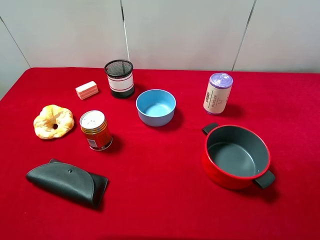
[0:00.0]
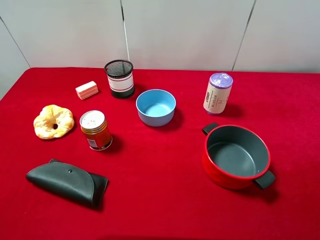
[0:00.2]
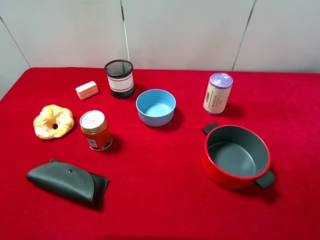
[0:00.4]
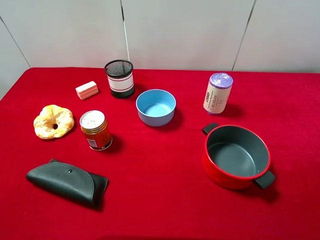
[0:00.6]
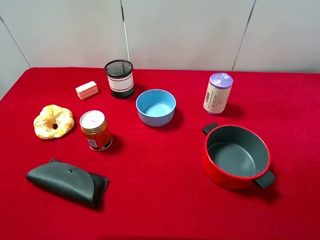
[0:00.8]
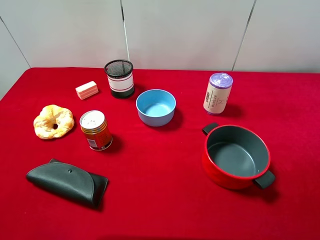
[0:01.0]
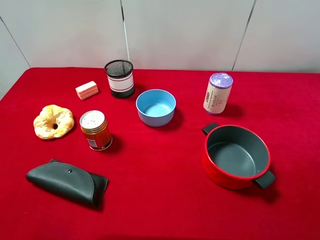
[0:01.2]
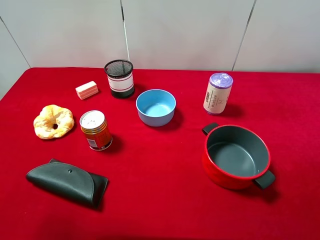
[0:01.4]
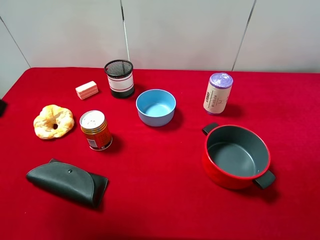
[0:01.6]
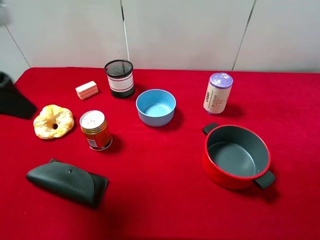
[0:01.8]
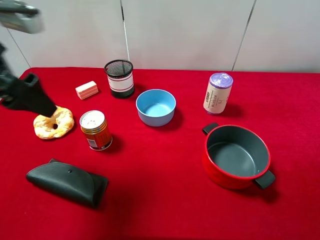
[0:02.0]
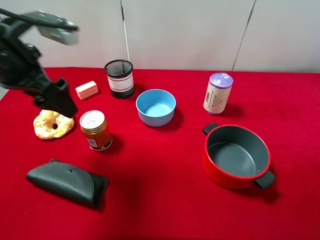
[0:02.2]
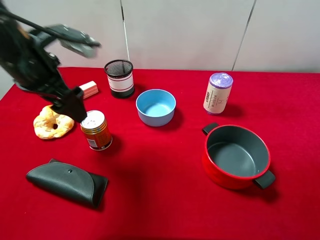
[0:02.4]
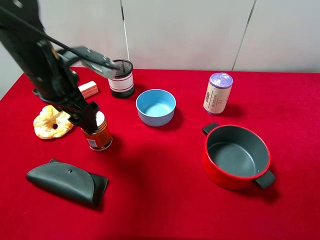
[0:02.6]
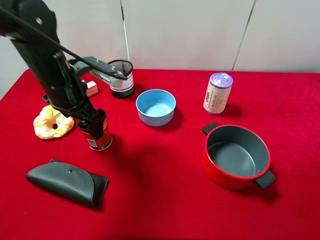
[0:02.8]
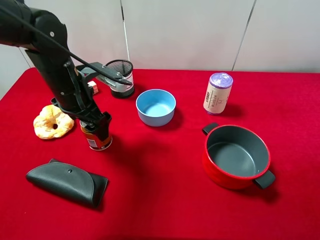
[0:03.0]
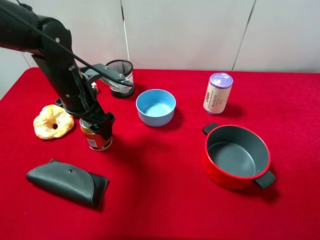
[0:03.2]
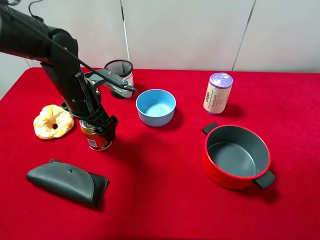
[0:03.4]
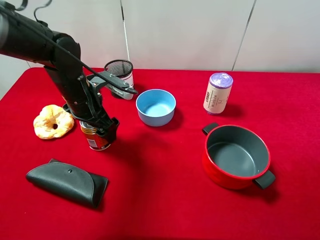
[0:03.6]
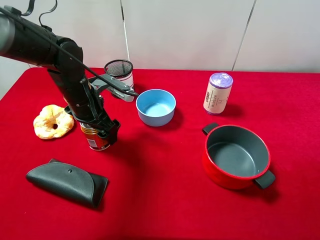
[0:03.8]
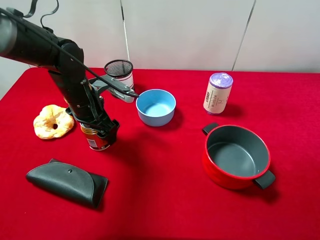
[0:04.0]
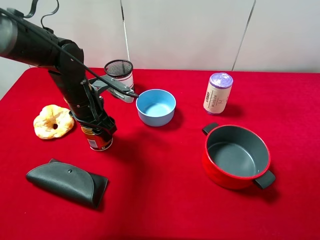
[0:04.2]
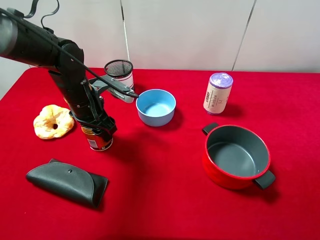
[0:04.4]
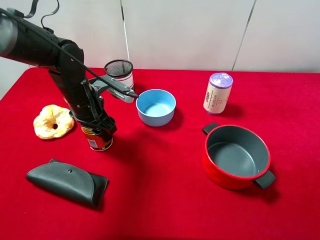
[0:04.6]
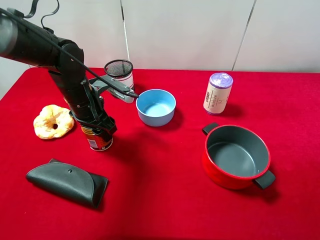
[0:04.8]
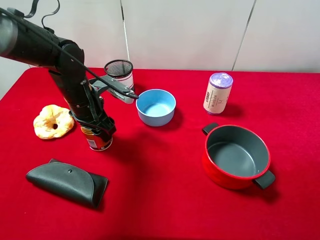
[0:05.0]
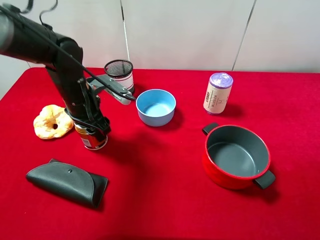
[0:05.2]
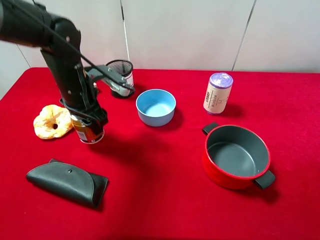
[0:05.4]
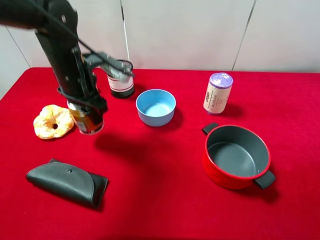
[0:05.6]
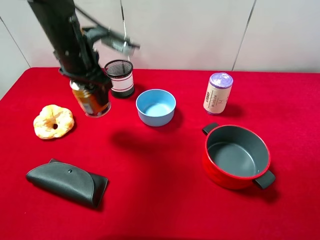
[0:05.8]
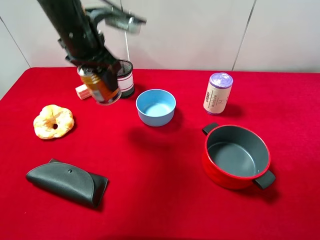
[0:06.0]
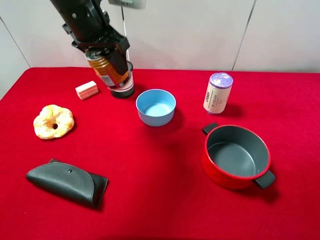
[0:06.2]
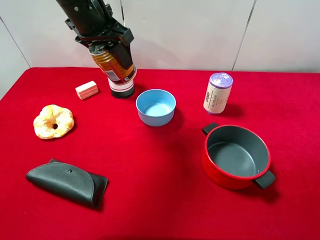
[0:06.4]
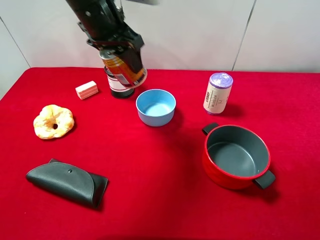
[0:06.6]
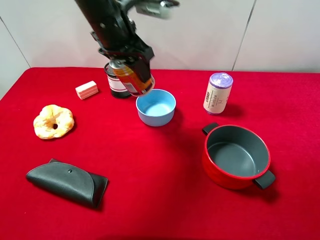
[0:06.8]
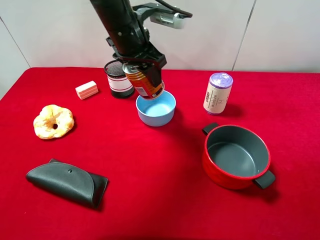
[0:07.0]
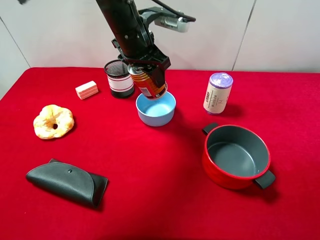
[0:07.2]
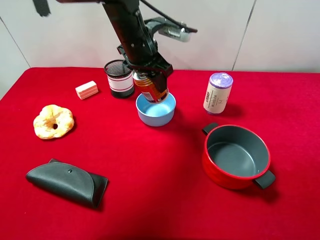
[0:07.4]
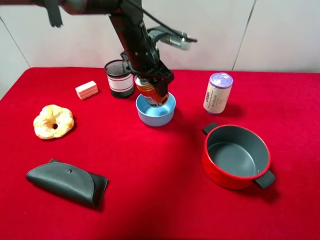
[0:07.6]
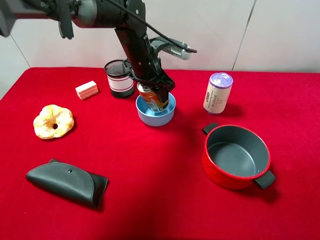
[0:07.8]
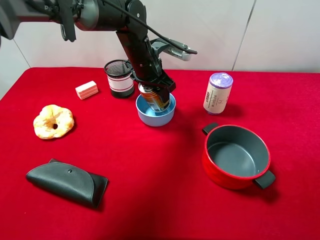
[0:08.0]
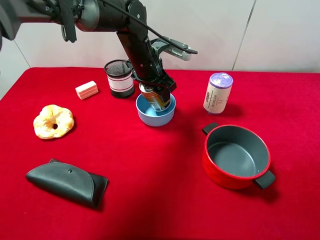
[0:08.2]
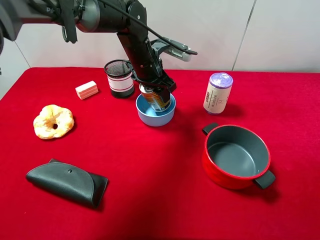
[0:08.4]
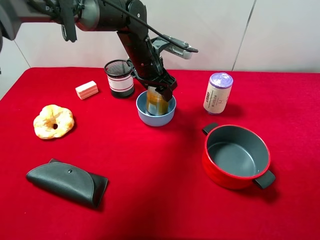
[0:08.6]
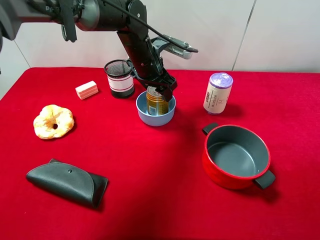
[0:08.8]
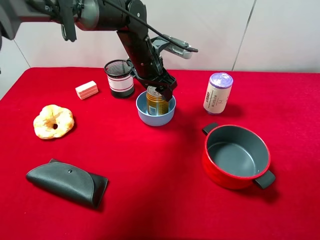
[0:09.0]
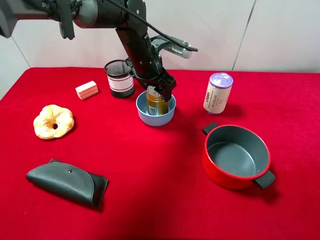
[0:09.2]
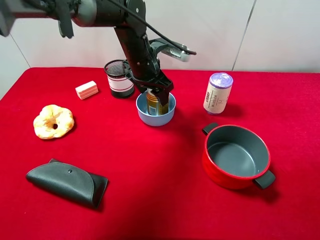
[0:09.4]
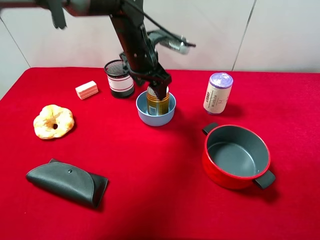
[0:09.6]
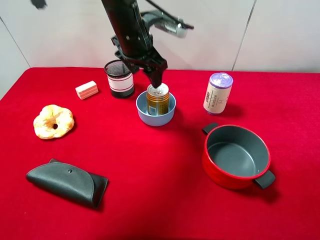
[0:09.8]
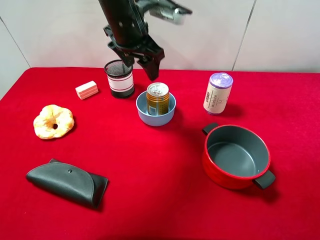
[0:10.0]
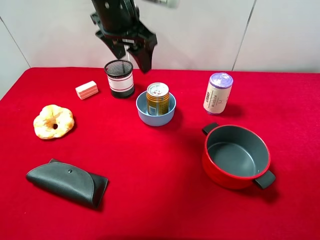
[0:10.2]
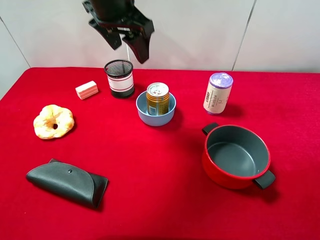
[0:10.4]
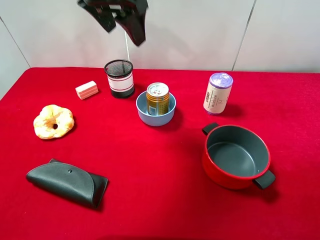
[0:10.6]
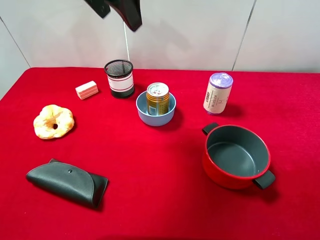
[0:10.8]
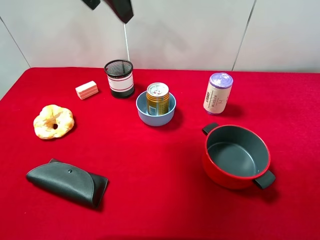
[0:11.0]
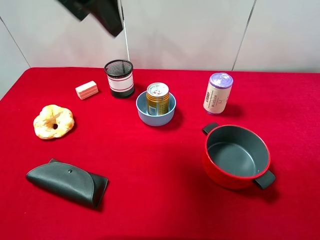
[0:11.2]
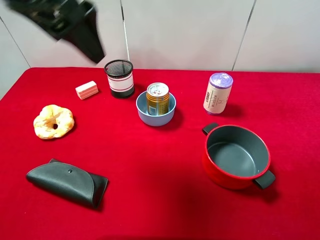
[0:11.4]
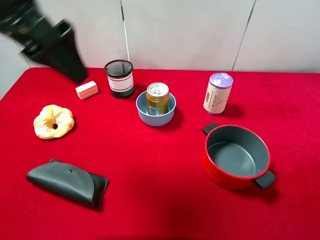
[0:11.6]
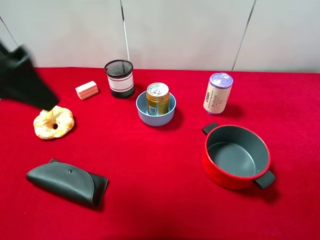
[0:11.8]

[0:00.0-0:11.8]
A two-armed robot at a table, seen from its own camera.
Task of the whole recording: pick up an item with a gripper and place it in a random container on the desktop.
0:01.4 to 0:03.0: The left gripper moves forward, downward and to the right, approximately 25 cm.
0:03.0 to 0:04.4: The left gripper closes up.
0:04.4 to 0:06.0: The left gripper is displaced upward by roughly 15 cm.
0:06.0 to 0:07.4: The left gripper is displaced to the right and downward by some 10 cm.
0:07.4 to 0:08.8: The grippers move only a little.
0:08.8 to 0:10.4: The left gripper is displaced upward by approximately 15 cm.
0:10.4 to 0:11.8: The left gripper travels backward and to the left by about 20 cm, and opens its fingers.

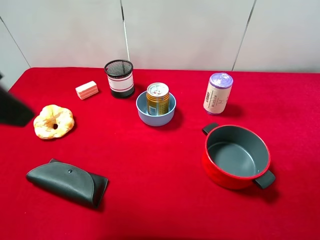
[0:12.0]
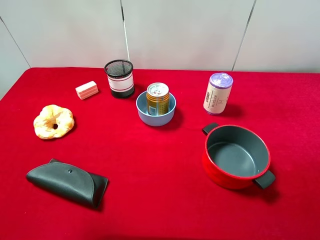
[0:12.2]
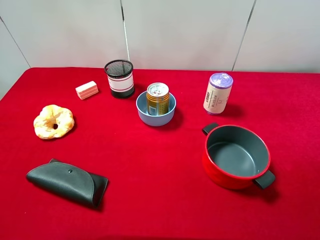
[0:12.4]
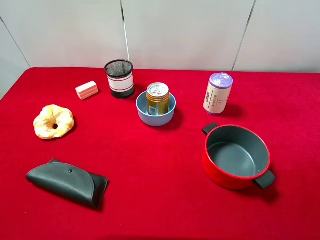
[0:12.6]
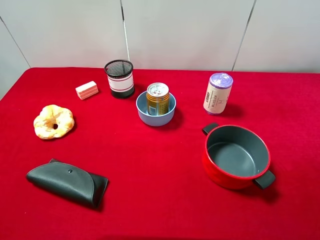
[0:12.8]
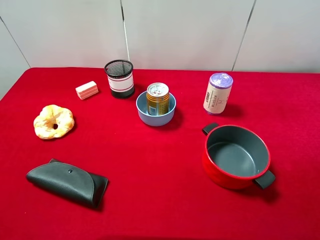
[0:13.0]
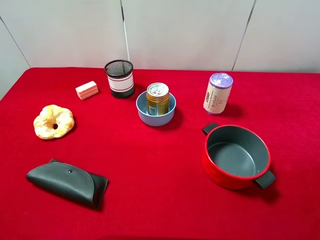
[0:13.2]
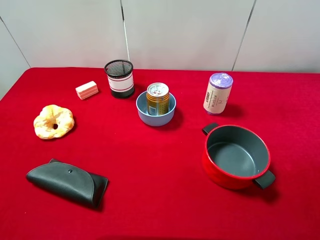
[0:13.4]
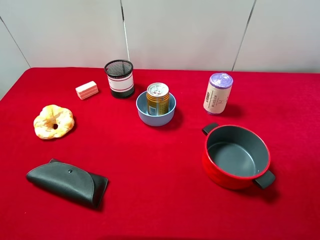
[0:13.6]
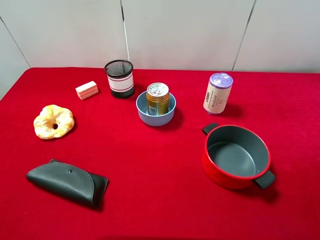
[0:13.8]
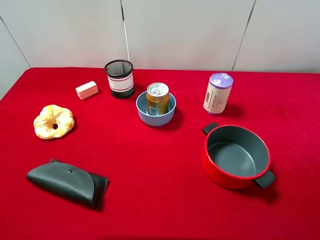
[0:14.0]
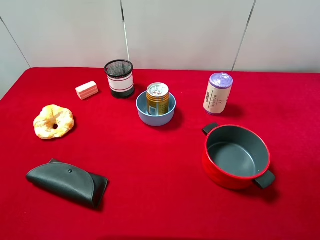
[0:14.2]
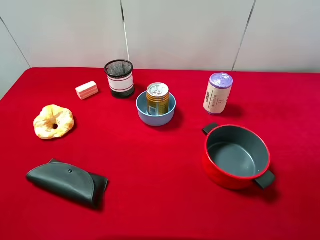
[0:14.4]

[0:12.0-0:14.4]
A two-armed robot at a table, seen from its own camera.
Task of the whole recording: pick up an item with a gripper and place it in a random container on the desktop.
0:12.0 to 0:13.2: The left gripper heads backward, to the left and downward, covering about 20 cm.
0:13.2 to 0:14.4: Both grippers stay about where they are.

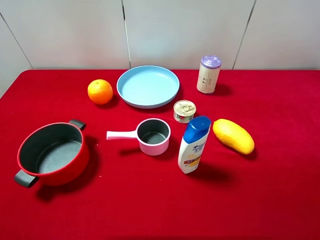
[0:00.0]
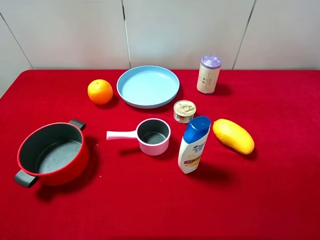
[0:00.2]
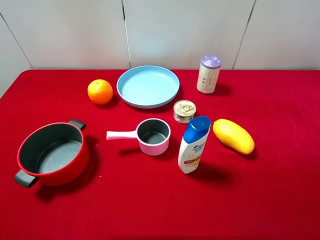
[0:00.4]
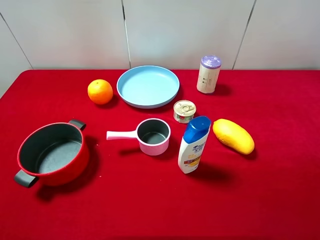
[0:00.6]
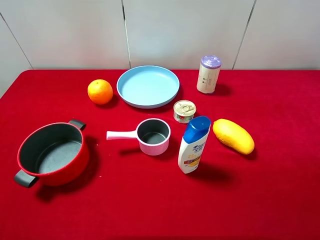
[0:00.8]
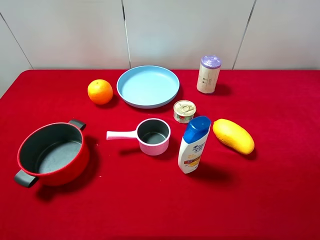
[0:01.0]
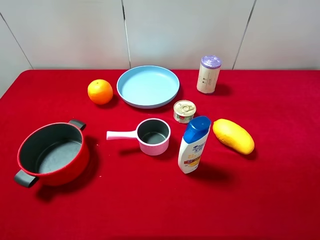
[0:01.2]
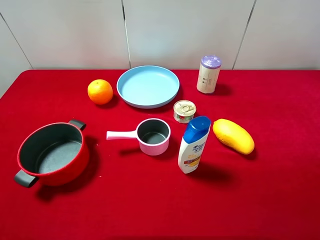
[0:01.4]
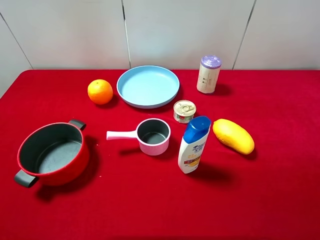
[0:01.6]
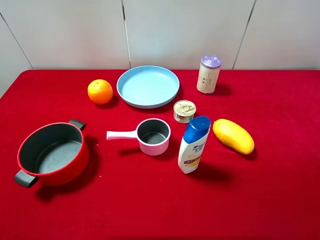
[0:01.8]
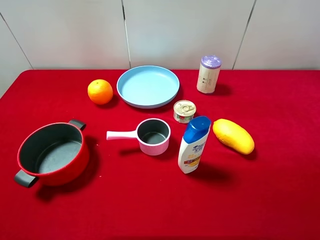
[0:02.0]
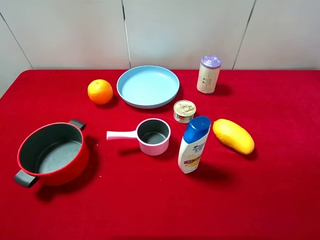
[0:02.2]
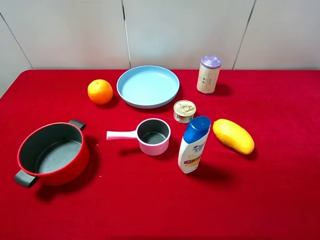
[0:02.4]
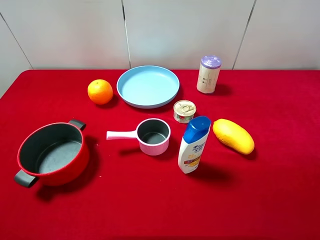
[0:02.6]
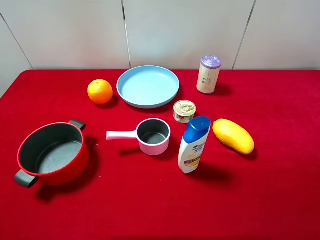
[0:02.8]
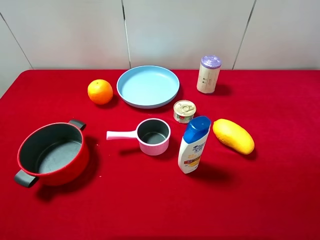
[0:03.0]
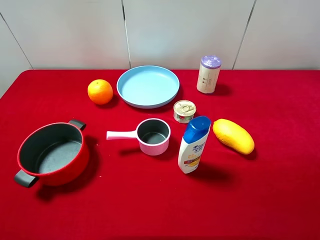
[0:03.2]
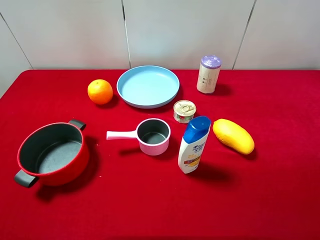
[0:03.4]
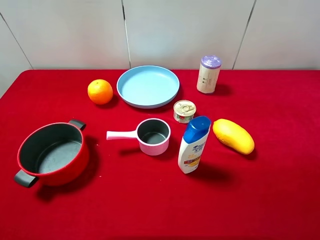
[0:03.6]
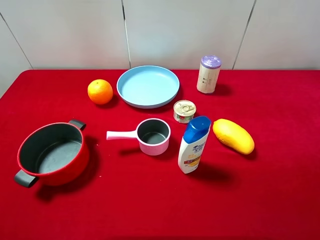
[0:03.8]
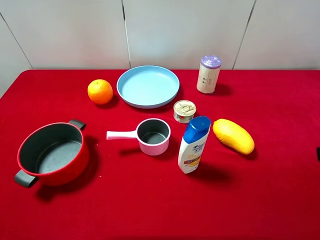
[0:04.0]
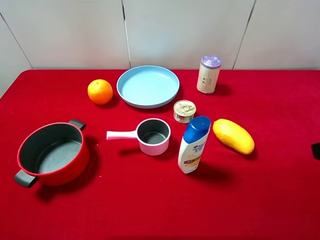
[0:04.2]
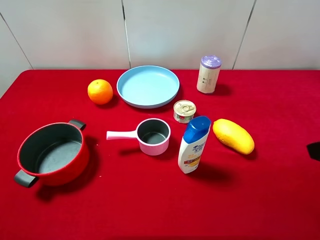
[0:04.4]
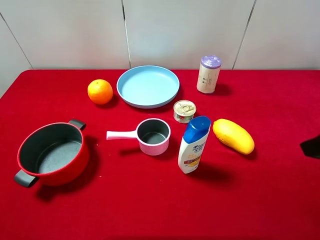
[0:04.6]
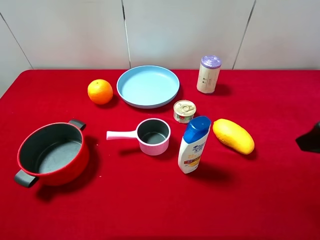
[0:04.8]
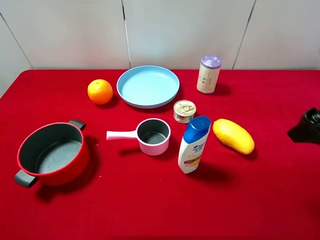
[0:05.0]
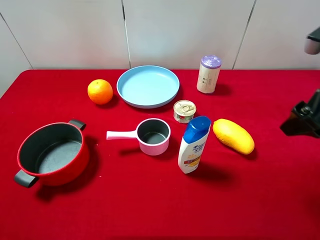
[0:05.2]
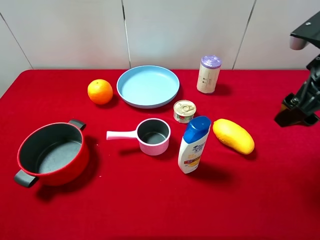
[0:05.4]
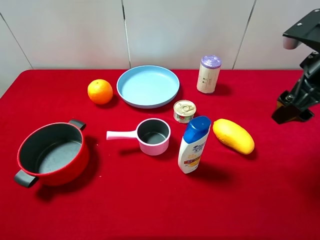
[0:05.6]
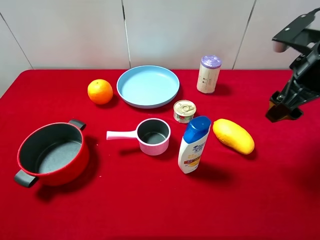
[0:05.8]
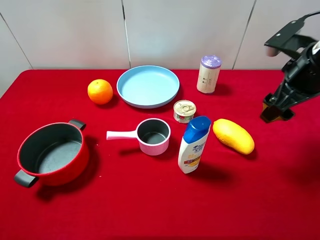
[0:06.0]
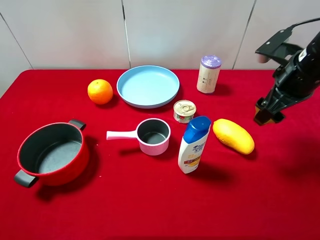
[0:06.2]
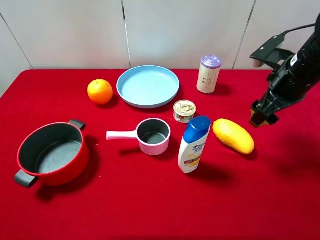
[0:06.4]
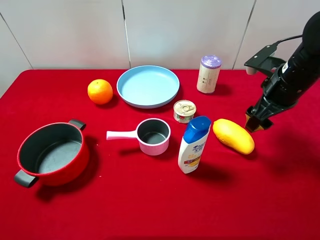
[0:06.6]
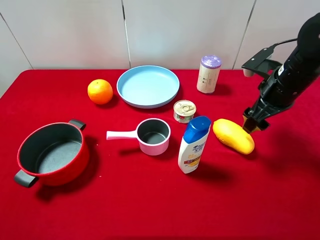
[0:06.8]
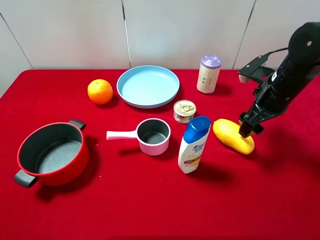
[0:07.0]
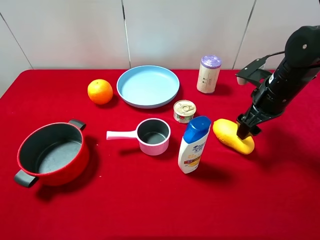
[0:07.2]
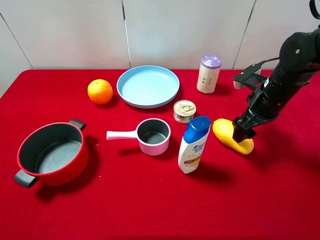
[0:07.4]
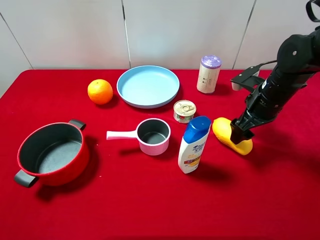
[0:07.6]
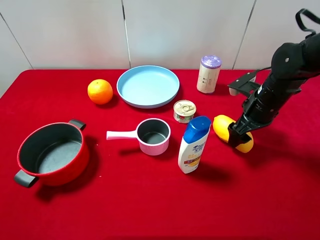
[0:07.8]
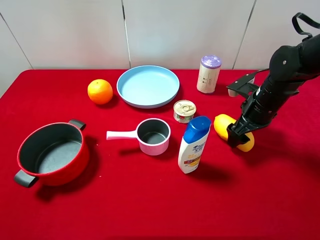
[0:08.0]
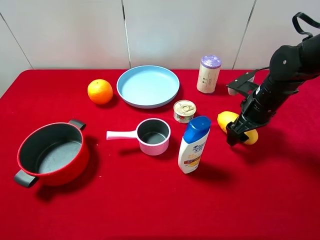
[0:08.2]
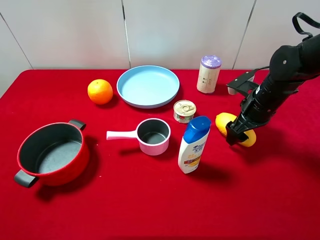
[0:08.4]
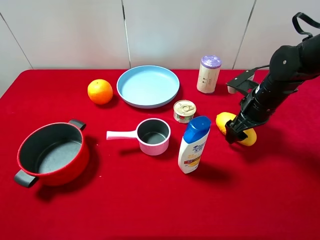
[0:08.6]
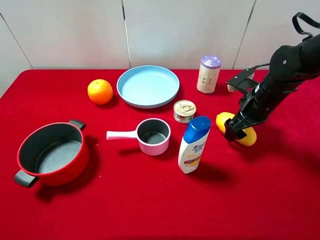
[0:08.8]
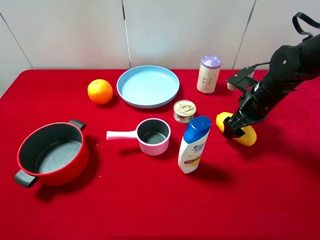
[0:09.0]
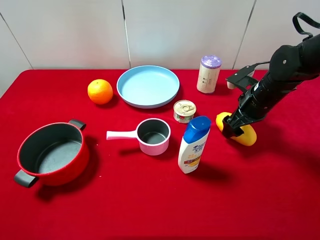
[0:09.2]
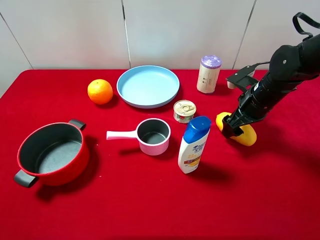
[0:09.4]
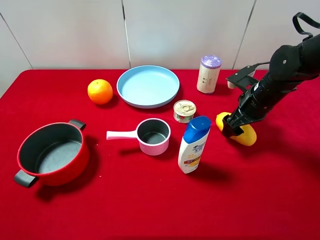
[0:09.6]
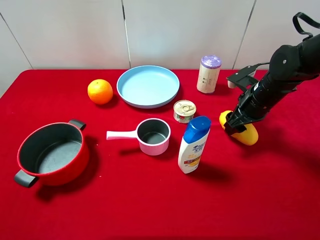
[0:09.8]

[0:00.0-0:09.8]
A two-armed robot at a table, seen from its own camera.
Task of the whole recording: pick up an item with a gripper and place it in a random container on the desktop.
0:00.0 to 0:02.8: Both grippers stay put.
0:04.2 to 0:05.6: The right gripper is displaced forward by roughly 15 cm.
0:05.6 to 0:07.0: The right gripper goes some 10 cm downward and forward.
0:07.0 to 0:08.4: The grippers make only small movements.
0:08.4 to 0:09.8: The right gripper closes.
